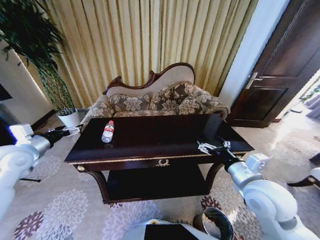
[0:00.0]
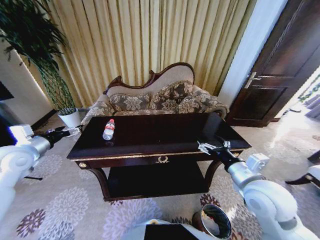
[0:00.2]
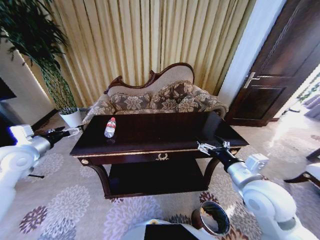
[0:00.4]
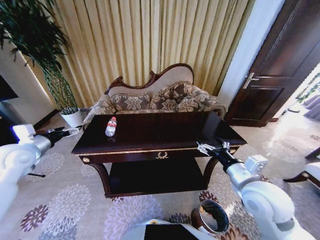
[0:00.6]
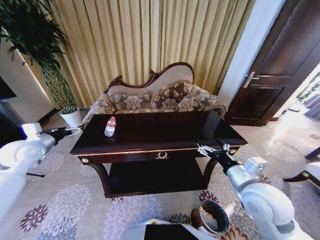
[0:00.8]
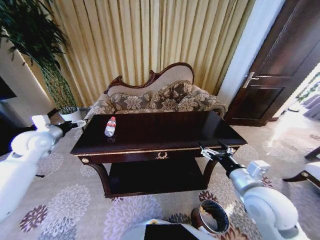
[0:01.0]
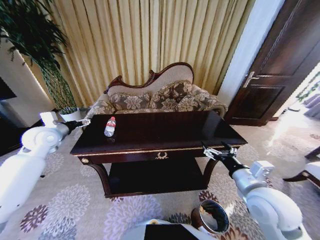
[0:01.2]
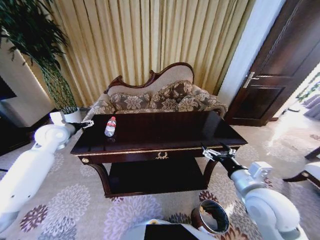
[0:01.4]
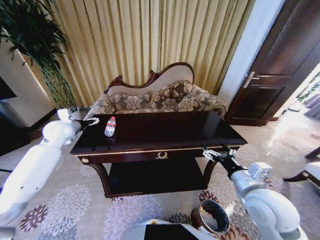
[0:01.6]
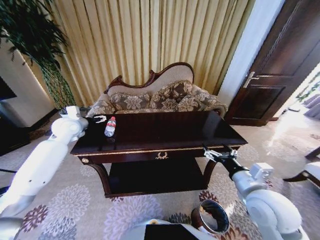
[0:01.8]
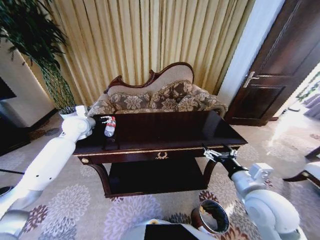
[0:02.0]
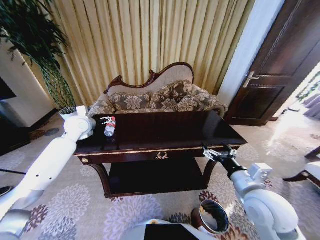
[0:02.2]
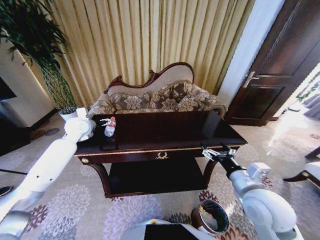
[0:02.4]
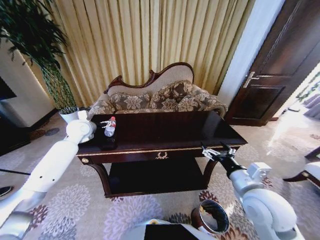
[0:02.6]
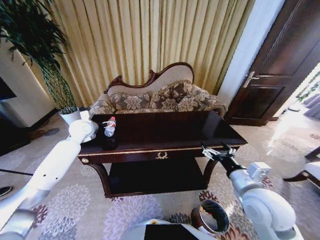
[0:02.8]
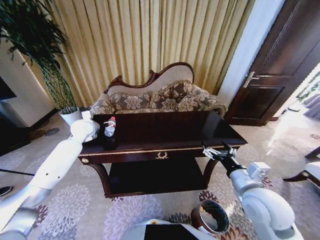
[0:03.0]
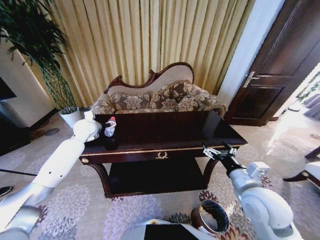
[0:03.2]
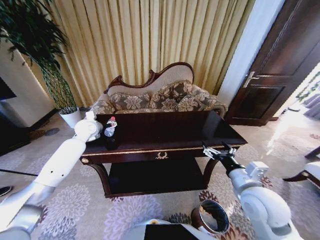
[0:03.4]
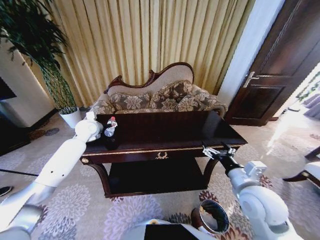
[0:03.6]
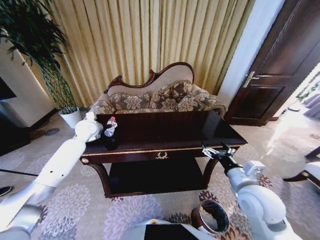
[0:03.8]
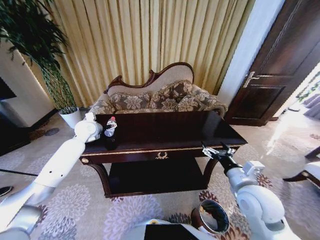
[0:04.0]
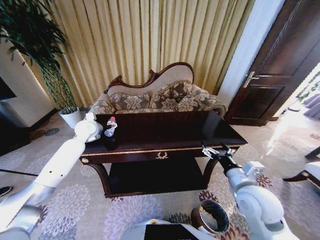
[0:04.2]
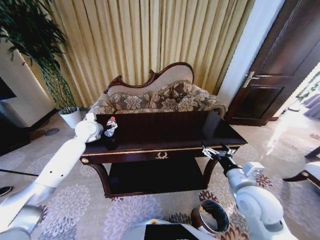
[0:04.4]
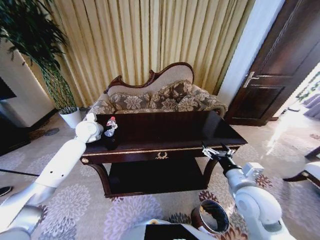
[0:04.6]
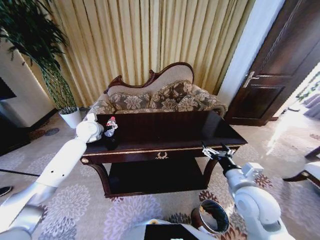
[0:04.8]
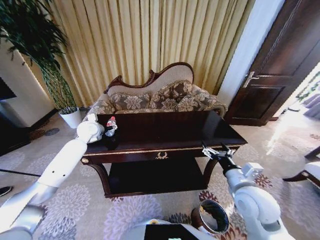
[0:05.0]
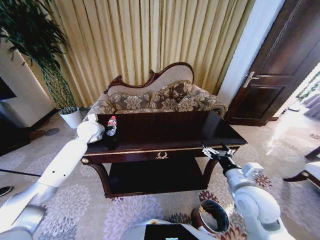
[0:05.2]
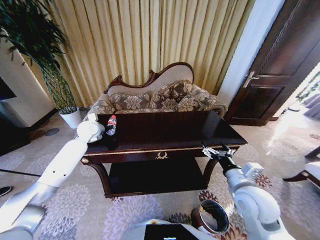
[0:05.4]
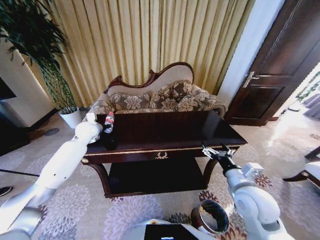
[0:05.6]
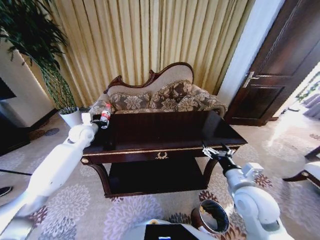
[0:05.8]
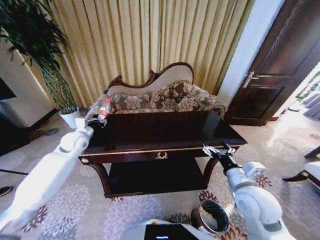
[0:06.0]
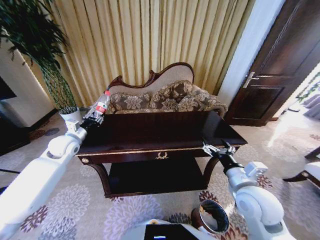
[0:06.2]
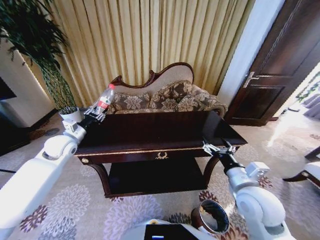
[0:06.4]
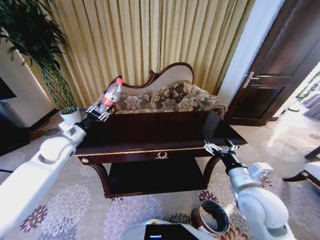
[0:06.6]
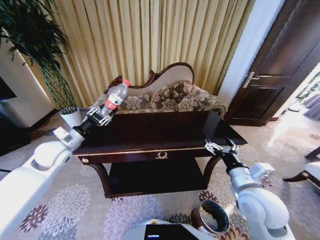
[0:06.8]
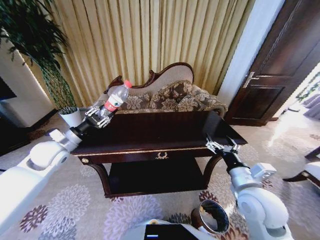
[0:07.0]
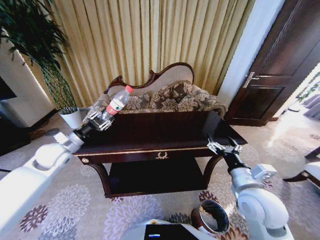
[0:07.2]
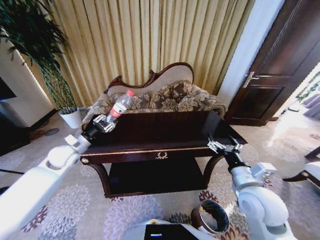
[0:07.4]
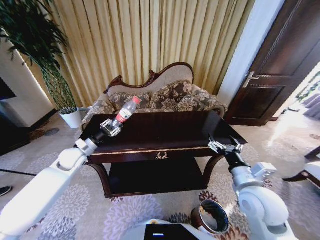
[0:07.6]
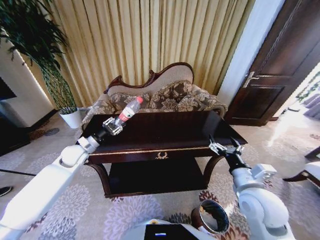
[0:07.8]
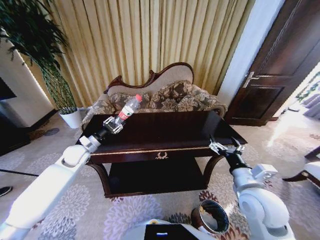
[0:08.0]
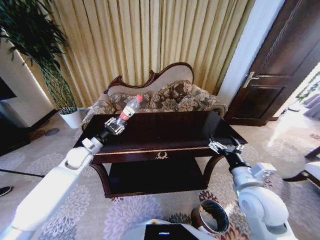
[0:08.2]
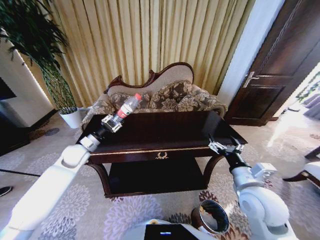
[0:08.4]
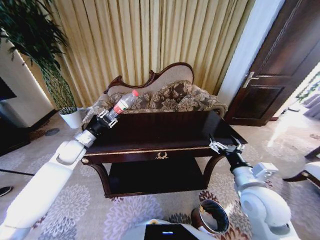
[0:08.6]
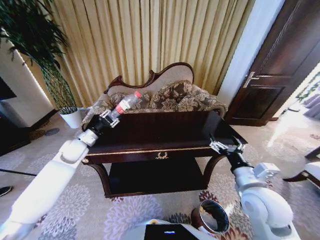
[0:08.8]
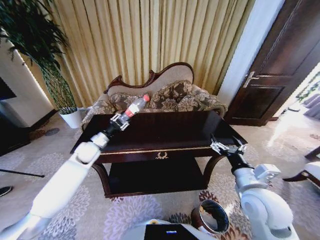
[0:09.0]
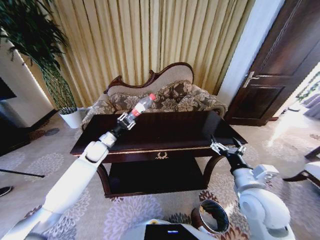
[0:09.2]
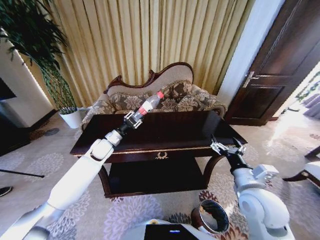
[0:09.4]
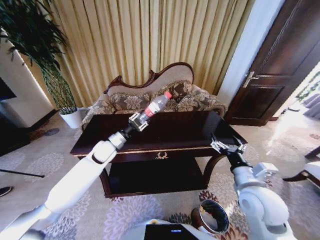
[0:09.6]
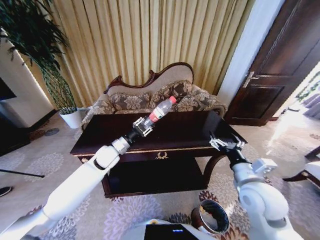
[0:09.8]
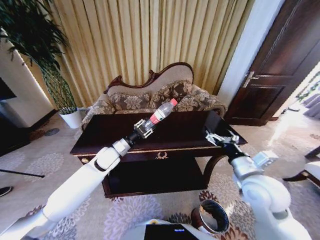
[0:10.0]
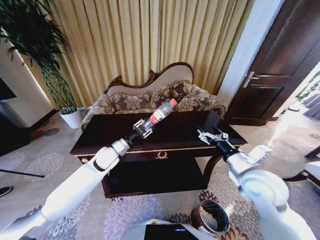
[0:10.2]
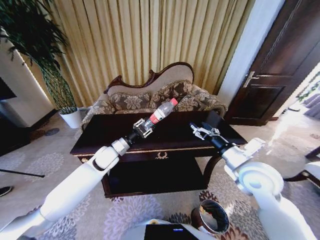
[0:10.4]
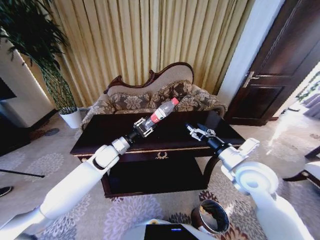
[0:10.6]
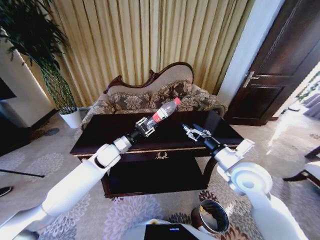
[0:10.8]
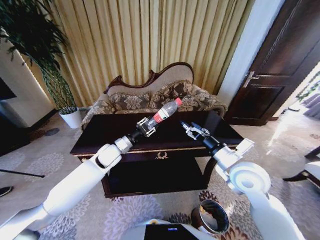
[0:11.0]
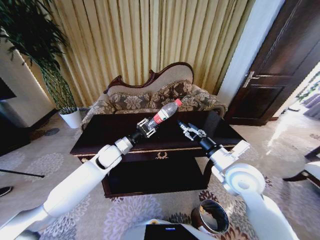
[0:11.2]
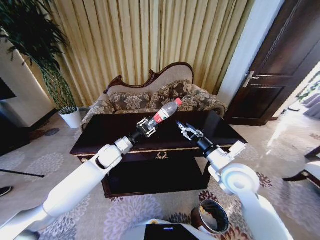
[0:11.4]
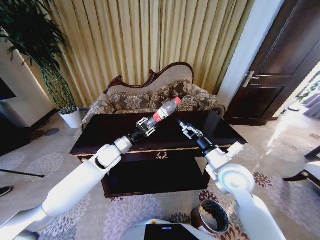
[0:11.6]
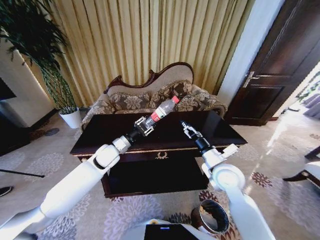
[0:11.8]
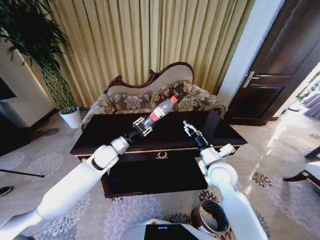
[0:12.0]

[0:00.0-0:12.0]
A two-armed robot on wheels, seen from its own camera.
Task of the whole recording: Move to the front of the table and place the trash on the table into the trash bin.
0:00.0 to 0:01.6: The left gripper heads forward, covering roughly 15 cm.
0:01.6 to 0:03.0: The left gripper is displaced to the right by some 5 cm.
0:03.0 to 0:04.4: The grippers make only small movements.
0:04.4 to 0:06.0: The left gripper heads backward, covering some 5 cm, and closes its fingers.
0:06.0 to 0:07.6: The left gripper travels backward by roughly 5 cm.
0:07.6 to 0:09.0: The left gripper ends up some 5 cm from where it was.
0:09.0 to 0:10.4: The left gripper shifts approximately 10 cm to the right, while the right gripper goes some 5 cm forward.
0:10.4 to 0:12.0: The right gripper moves downward and to the left, some 10 cm.

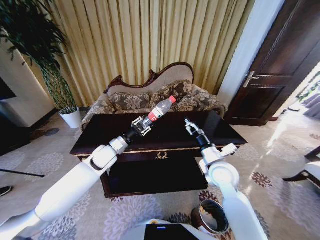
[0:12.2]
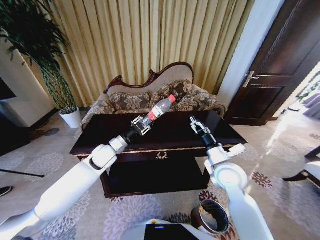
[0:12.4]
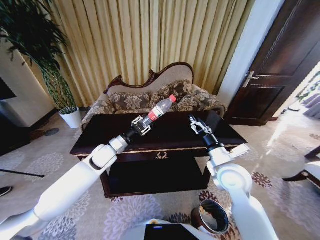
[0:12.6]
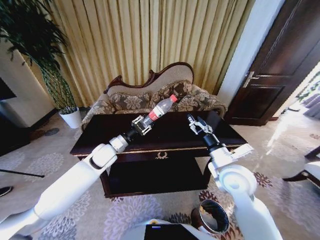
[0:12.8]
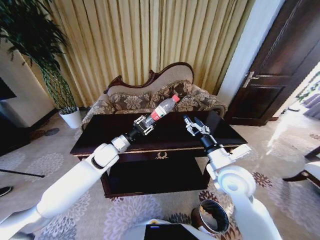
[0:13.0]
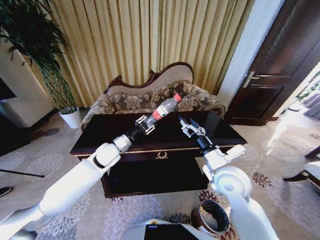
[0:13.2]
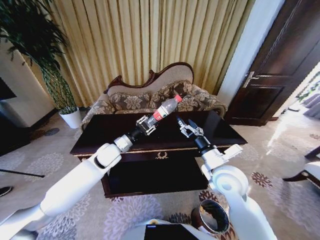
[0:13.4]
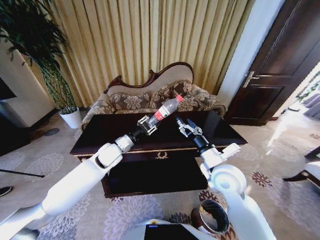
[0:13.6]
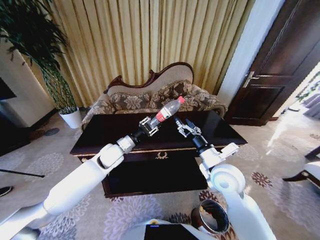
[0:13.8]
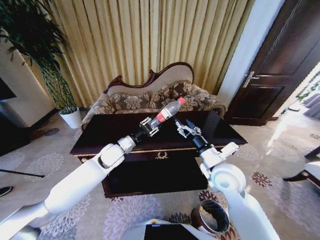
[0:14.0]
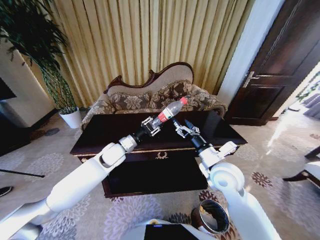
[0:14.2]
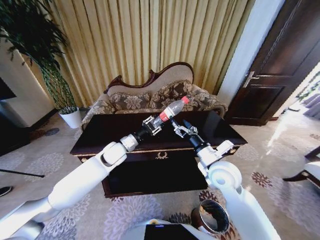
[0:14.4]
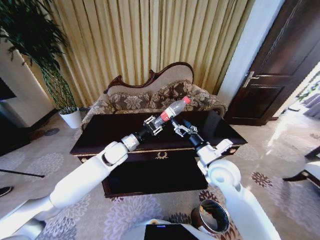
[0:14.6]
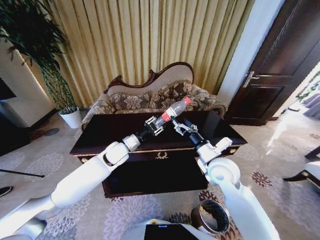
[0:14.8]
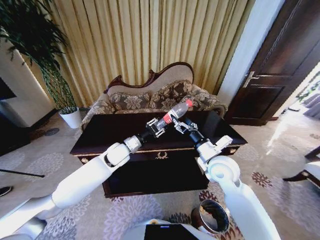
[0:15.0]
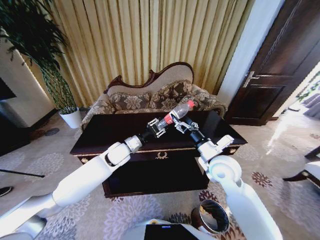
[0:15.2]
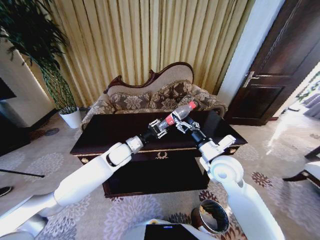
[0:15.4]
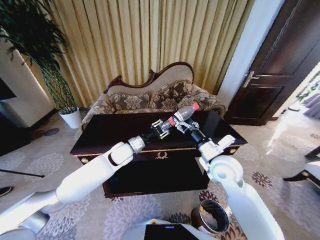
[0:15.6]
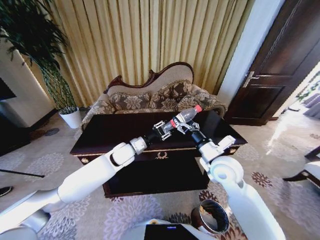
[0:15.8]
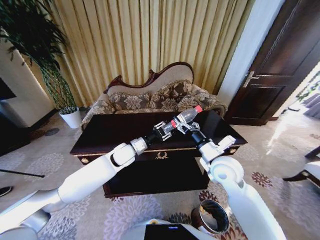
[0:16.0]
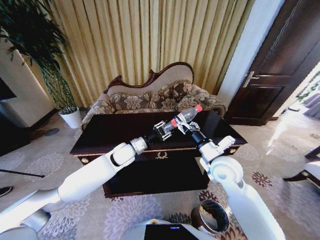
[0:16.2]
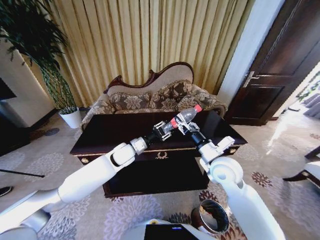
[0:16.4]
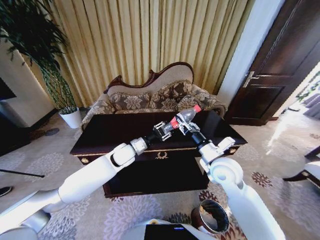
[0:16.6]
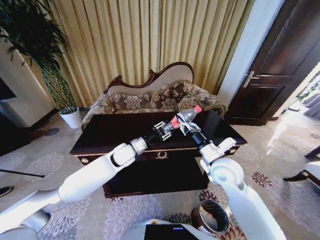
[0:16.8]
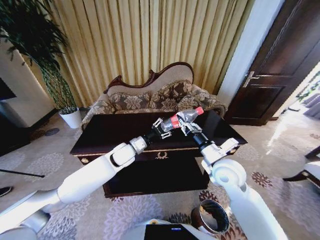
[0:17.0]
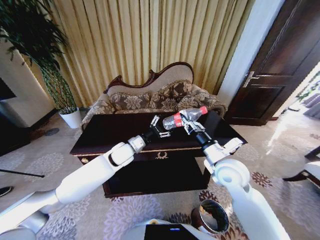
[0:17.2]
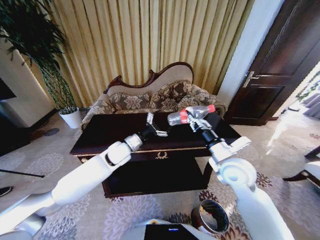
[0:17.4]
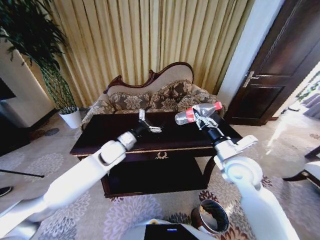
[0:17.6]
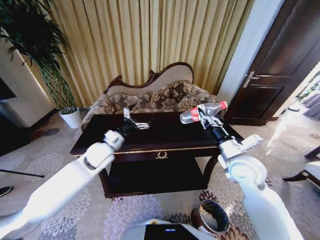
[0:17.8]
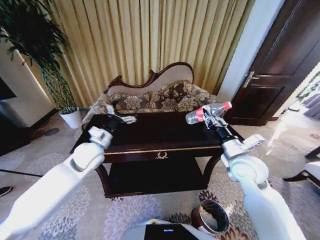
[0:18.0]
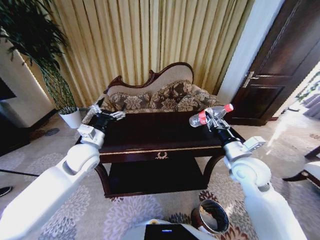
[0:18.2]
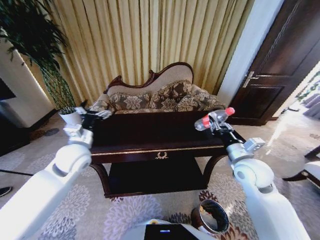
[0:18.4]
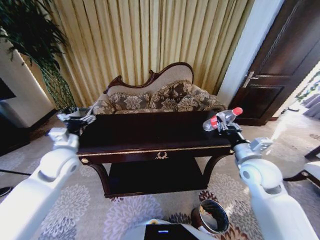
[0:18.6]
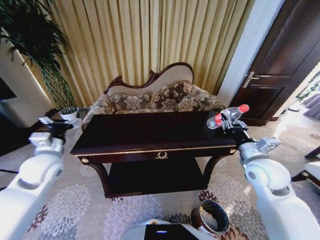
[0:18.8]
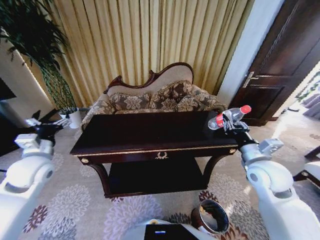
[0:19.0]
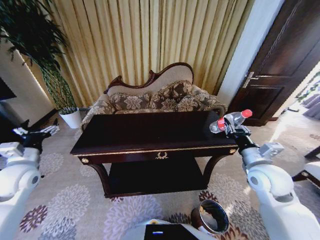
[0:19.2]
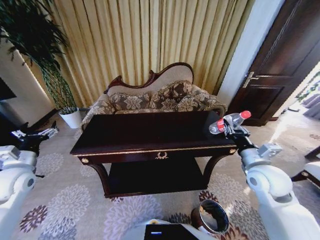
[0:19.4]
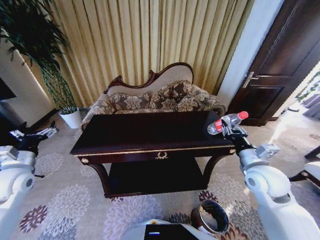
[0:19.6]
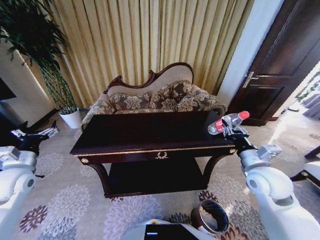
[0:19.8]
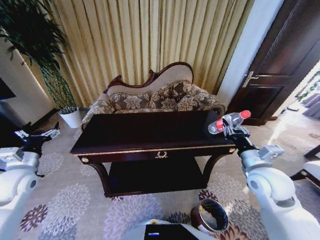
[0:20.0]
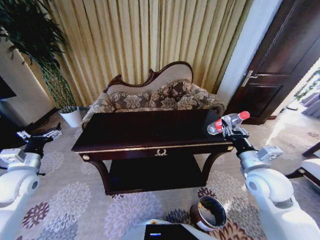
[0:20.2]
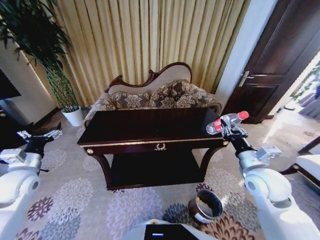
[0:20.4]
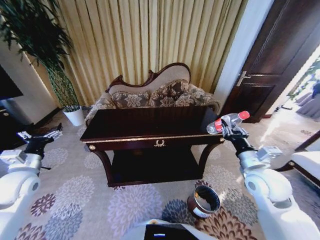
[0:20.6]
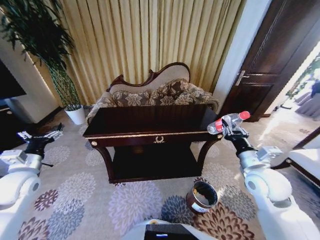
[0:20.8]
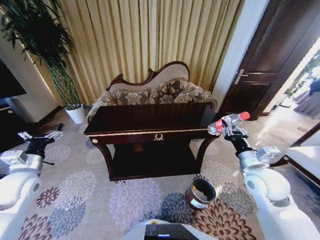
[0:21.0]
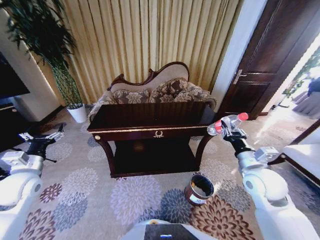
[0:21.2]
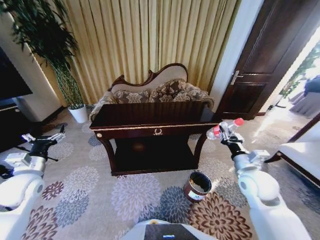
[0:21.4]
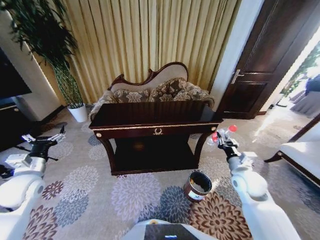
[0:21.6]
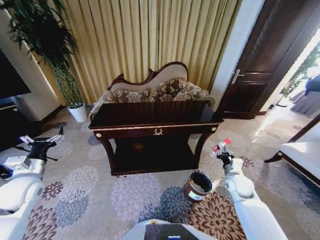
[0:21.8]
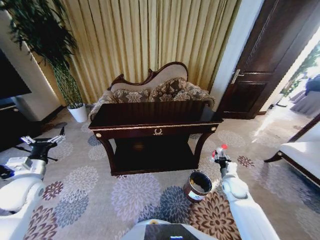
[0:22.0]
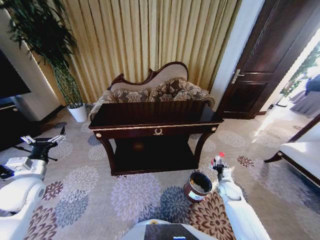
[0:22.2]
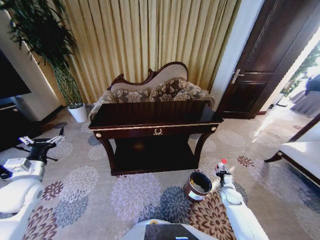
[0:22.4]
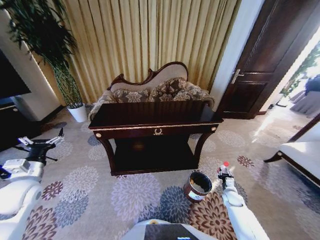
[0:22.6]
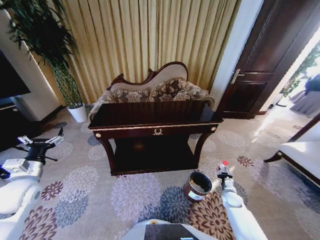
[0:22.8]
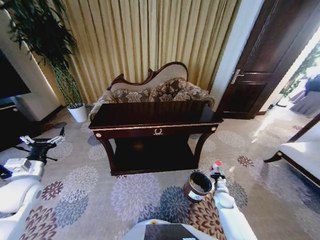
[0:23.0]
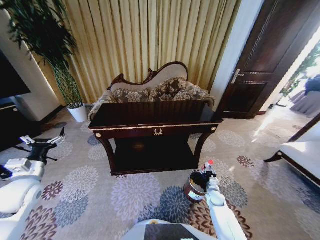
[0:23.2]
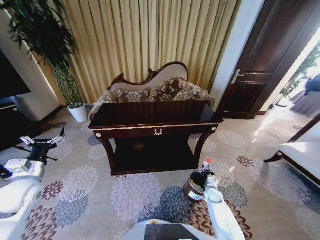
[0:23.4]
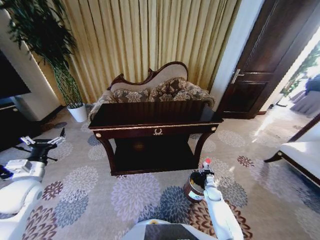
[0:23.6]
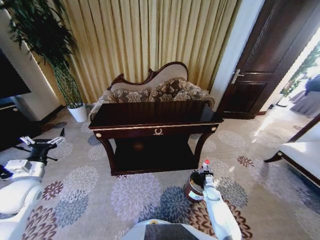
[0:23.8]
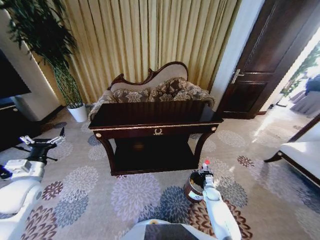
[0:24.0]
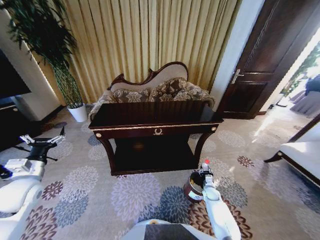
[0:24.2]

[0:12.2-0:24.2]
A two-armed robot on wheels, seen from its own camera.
Task of the whole recording: Move to the front of the table and place the trash on the table into the trash bin.
0:12.2 to 0:15.2: There are only small adjustments of the grippers.
0:15.2 to 0:16.6: The right gripper closes its fingers.
0:16.6 to 0:18.2: The left gripper goes some 15 cm to the left, upward and backward, and opens up, while the right gripper moves to the right, approximately 5 cm.
0:18.2 to 0:19.8: The left gripper heads to the left, covering roughly 20 cm.
0:21.2 to 0:22.6: The right gripper shifts roughly 35 cm downward.
0:22.6 to 0:24.2: The right gripper moves to the left, some 10 cm.
